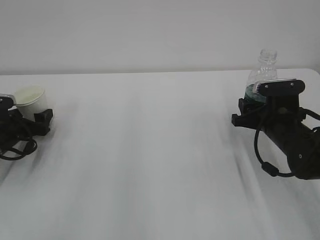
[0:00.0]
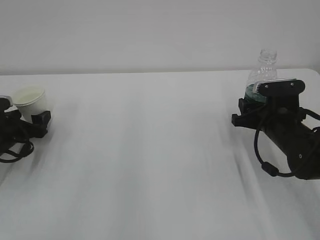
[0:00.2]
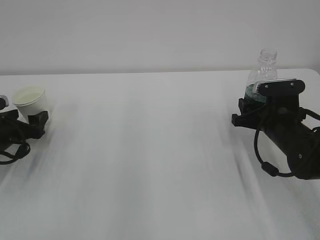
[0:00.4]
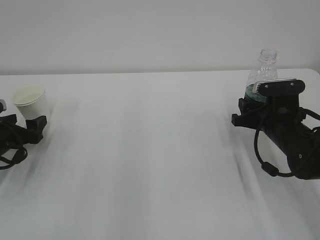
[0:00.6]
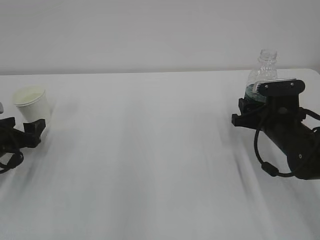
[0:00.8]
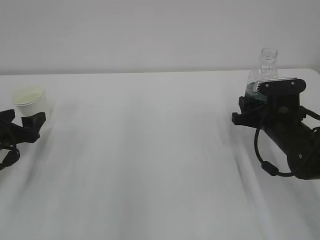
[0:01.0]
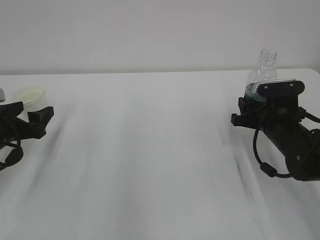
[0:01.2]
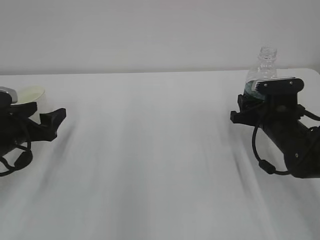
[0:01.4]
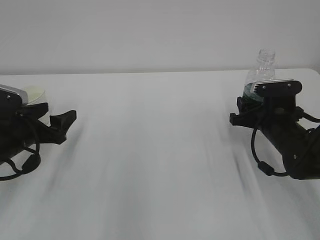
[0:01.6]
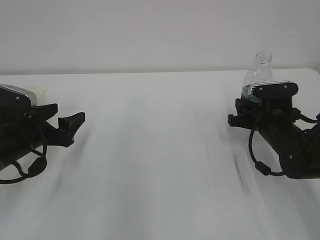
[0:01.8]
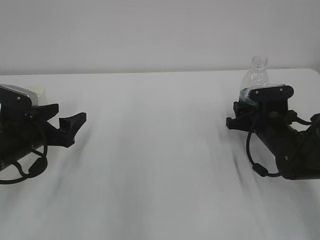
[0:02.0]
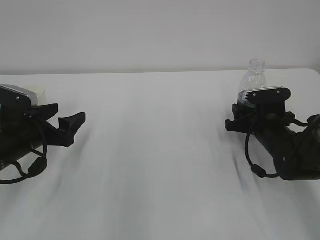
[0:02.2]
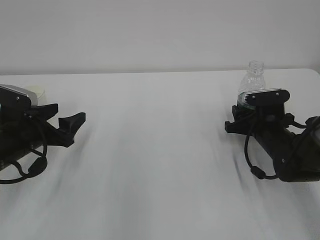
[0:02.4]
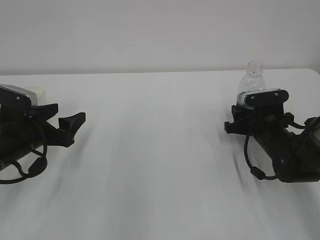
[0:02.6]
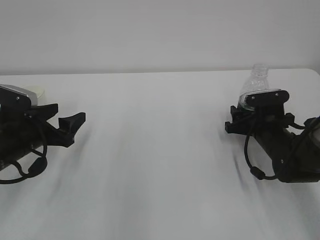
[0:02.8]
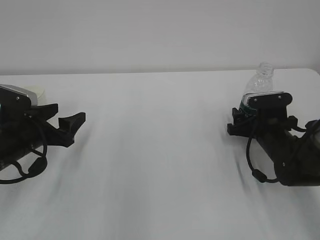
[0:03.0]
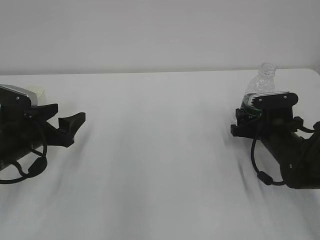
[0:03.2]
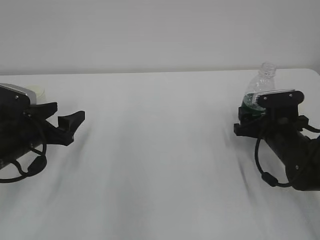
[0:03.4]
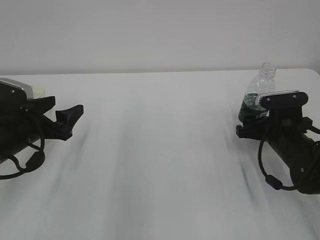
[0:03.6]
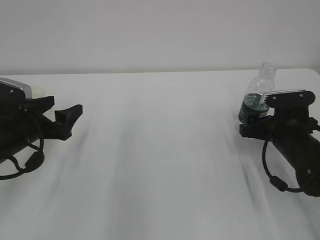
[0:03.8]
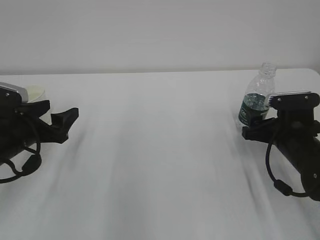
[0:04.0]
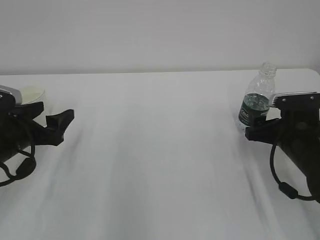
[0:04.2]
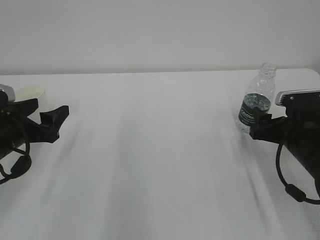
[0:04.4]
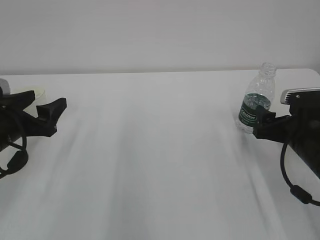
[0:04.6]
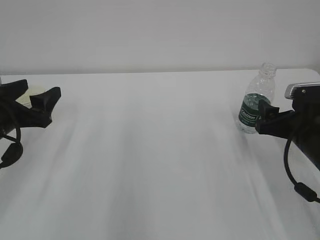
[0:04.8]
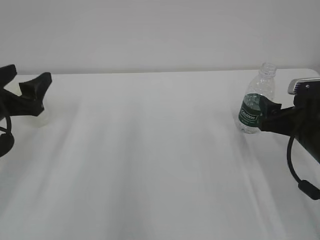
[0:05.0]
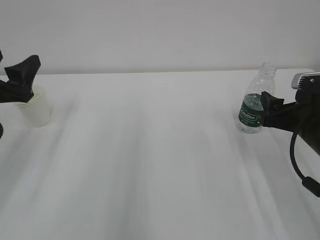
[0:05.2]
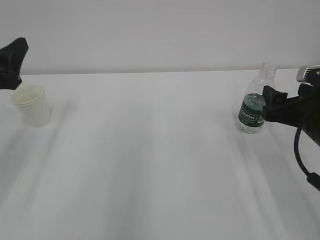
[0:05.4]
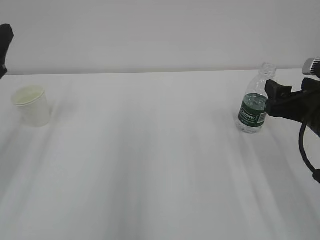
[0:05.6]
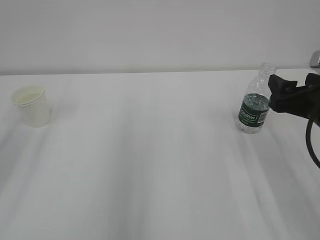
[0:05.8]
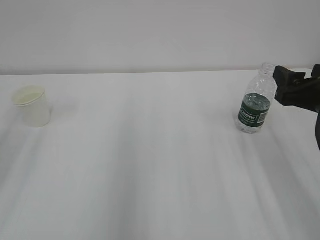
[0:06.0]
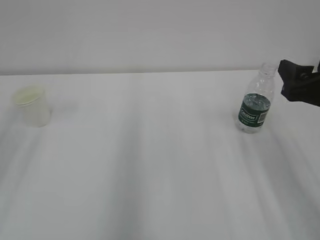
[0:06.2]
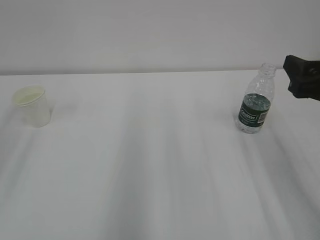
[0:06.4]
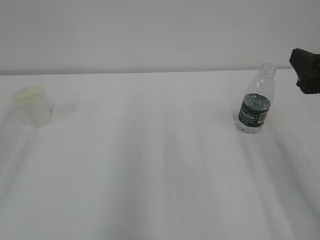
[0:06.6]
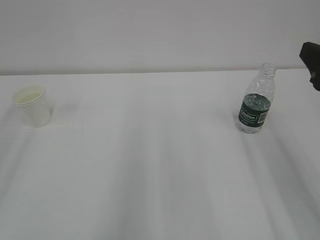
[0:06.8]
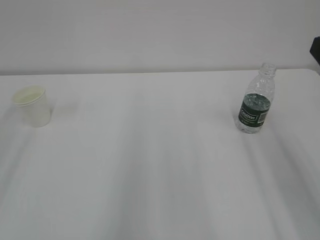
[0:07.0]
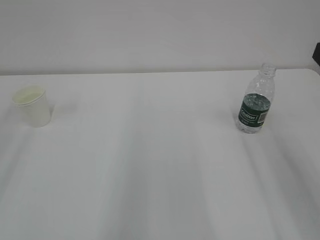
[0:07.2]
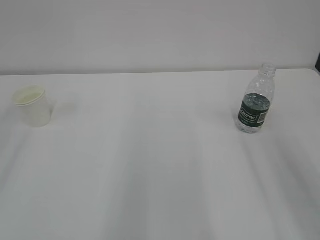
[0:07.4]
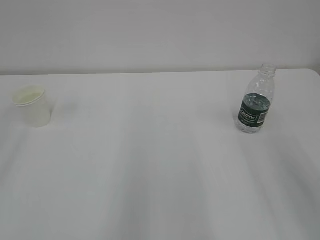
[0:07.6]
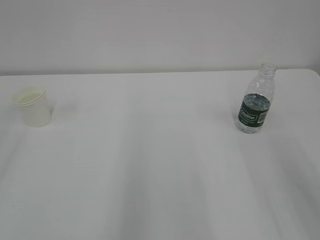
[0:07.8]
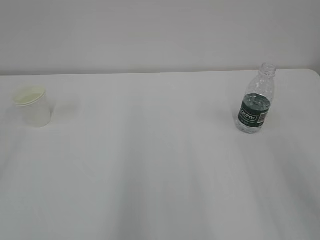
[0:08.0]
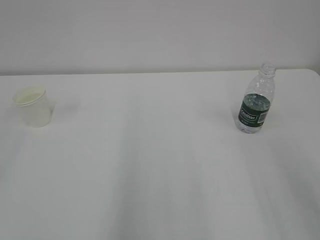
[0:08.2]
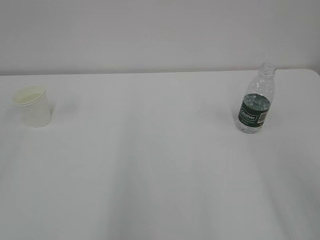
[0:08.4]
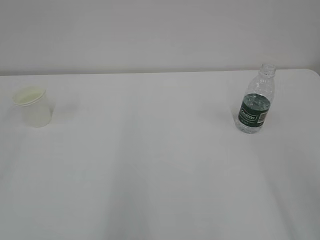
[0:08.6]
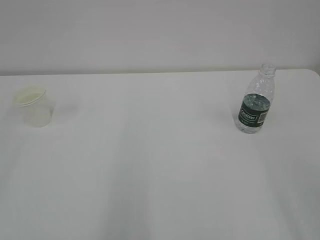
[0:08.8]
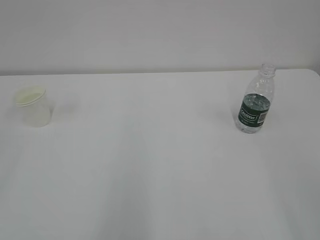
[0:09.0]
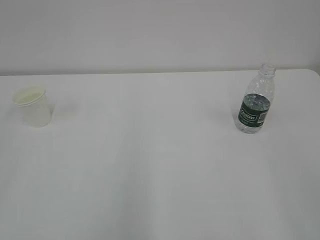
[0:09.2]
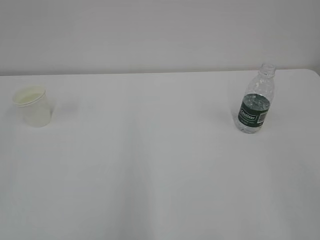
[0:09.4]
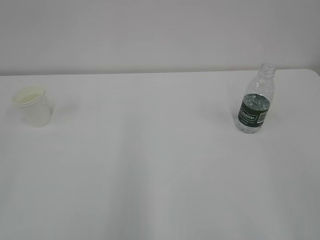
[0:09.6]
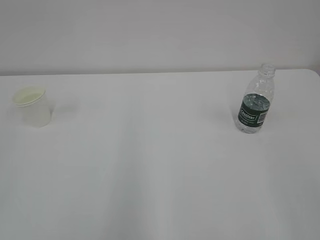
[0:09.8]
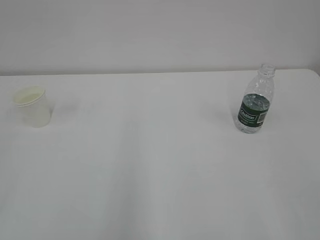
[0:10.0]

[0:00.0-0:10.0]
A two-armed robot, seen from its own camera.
0:00.0 to 0:01.4: The left gripper goes some 10 cm backward, upward and to the right.
0:01.4 to 0:02.8: The right gripper opens.
0:02.8 to 0:04.2: The right gripper moves backward, about 5 cm, and opens.
0:04.2 to 0:05.8: The right gripper heads upward, covering some 10 cm. The left gripper goes about 15 cm upward.
0:05.8 to 0:07.2: The right gripper heads upward and backward, covering about 15 cm.
